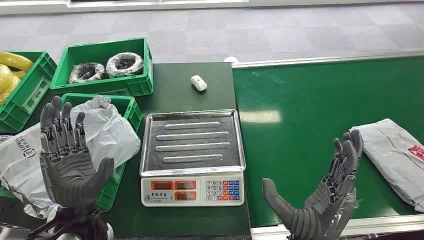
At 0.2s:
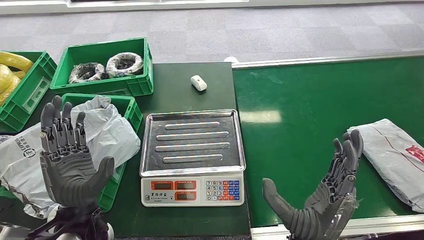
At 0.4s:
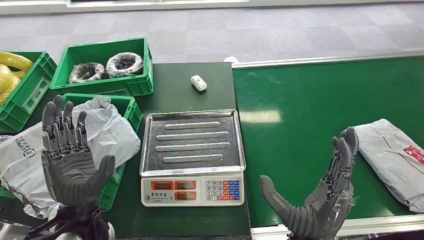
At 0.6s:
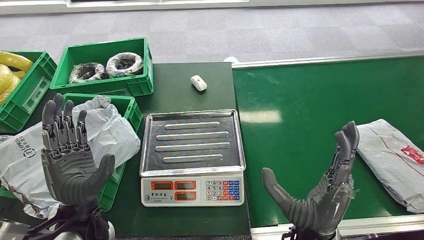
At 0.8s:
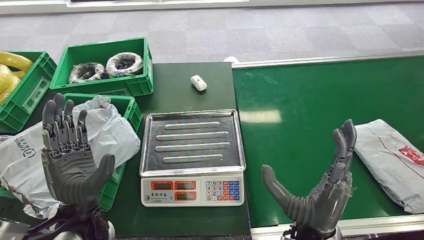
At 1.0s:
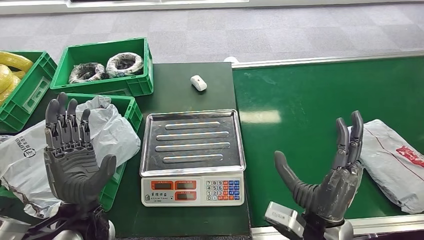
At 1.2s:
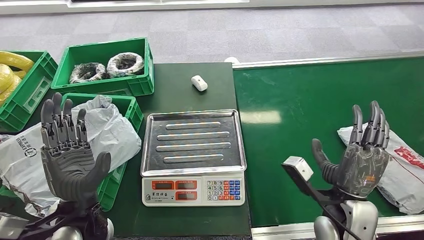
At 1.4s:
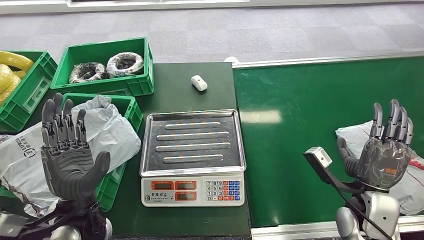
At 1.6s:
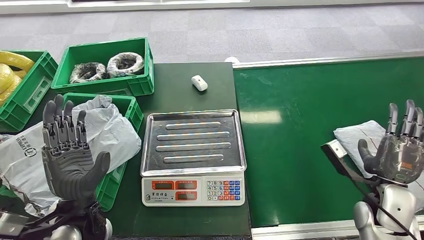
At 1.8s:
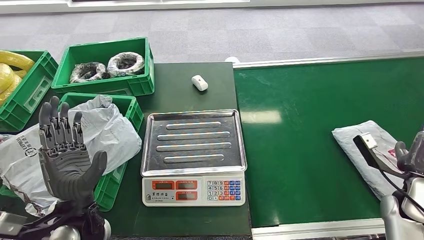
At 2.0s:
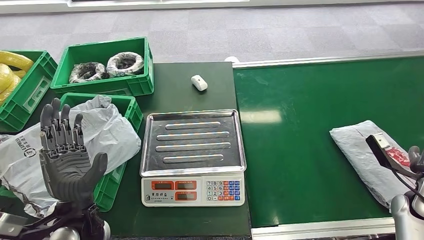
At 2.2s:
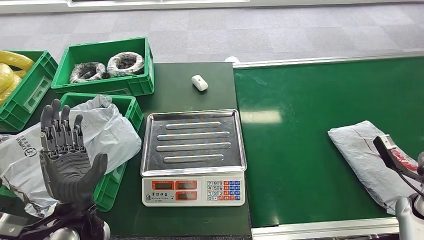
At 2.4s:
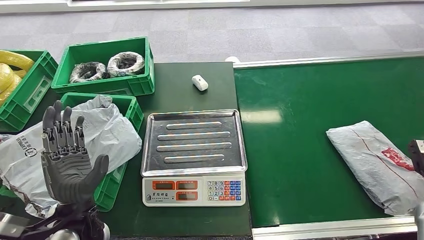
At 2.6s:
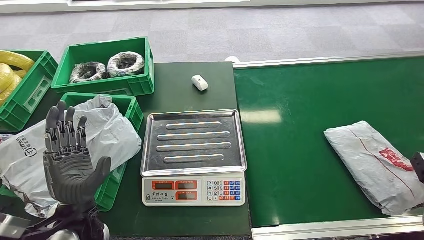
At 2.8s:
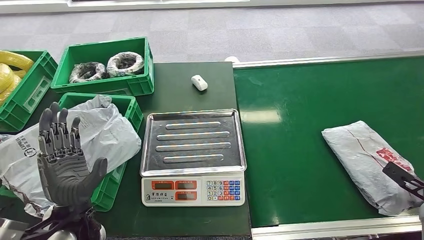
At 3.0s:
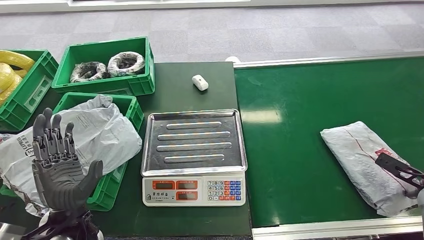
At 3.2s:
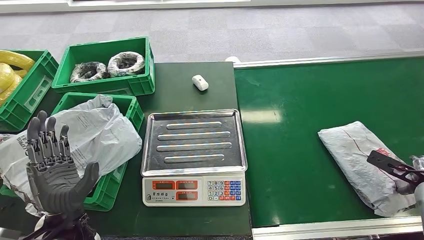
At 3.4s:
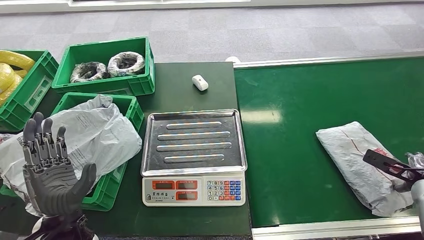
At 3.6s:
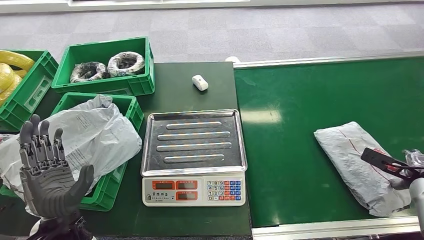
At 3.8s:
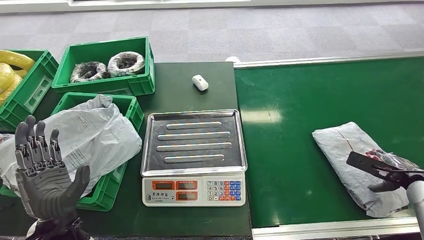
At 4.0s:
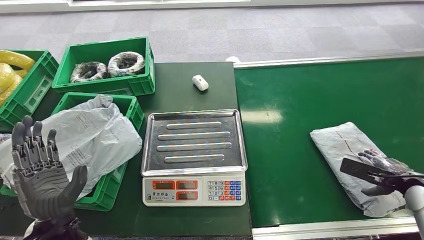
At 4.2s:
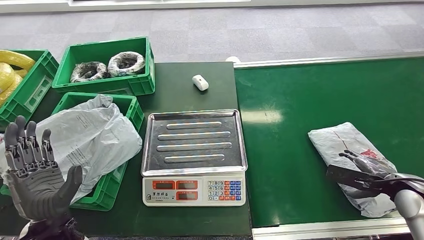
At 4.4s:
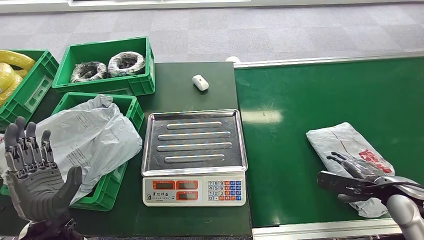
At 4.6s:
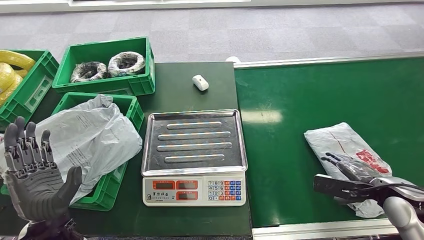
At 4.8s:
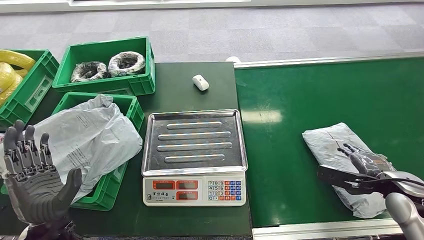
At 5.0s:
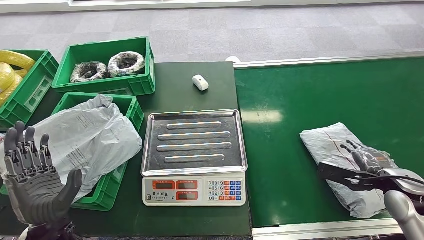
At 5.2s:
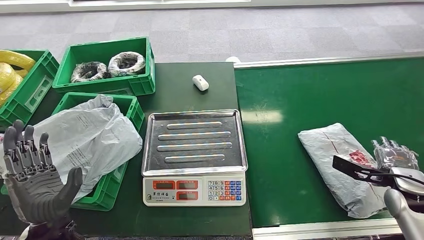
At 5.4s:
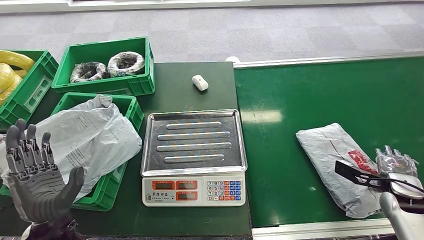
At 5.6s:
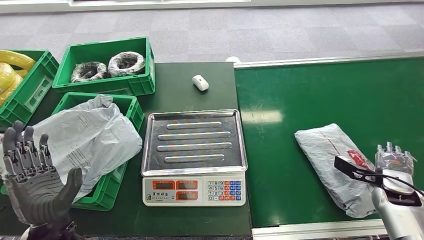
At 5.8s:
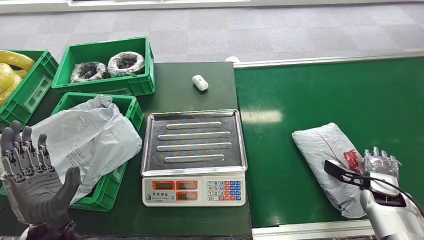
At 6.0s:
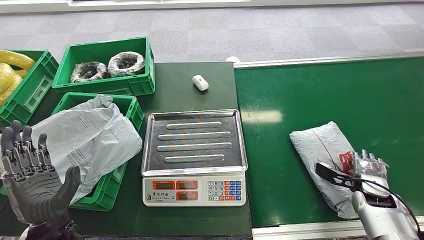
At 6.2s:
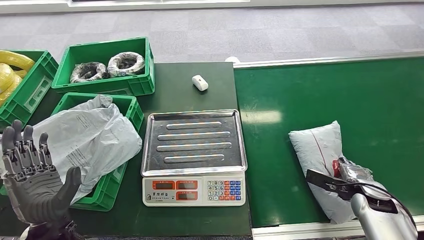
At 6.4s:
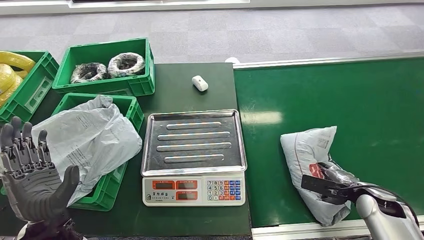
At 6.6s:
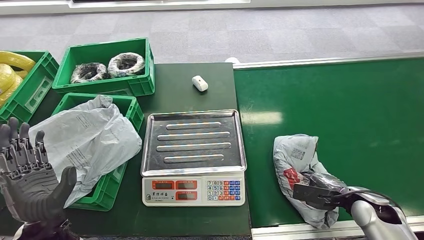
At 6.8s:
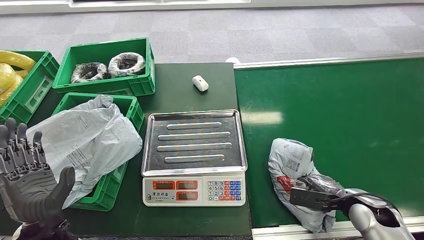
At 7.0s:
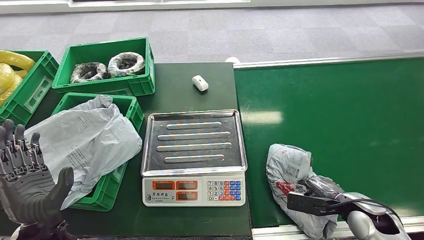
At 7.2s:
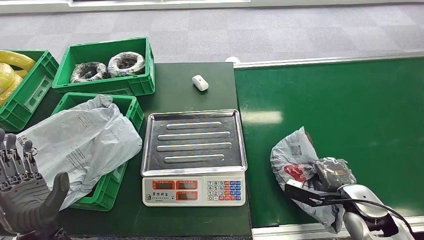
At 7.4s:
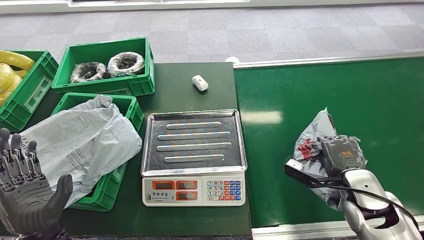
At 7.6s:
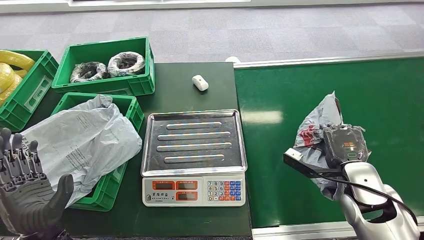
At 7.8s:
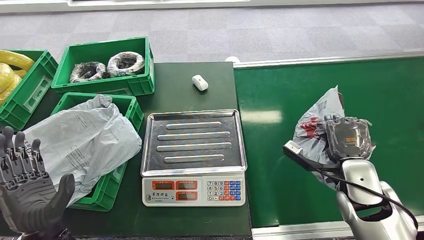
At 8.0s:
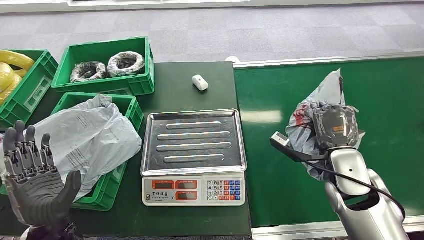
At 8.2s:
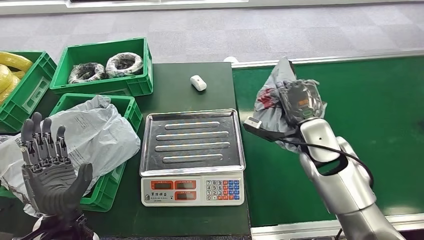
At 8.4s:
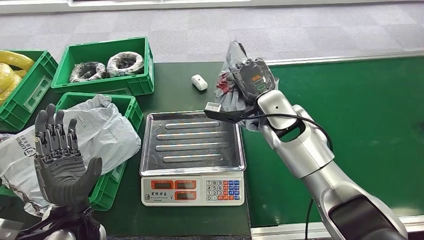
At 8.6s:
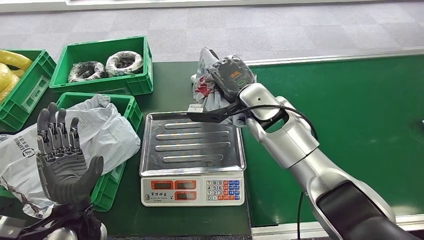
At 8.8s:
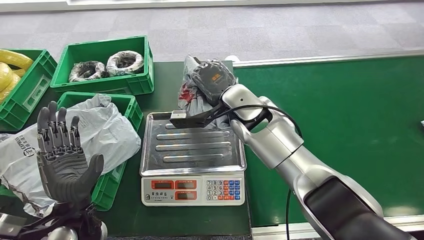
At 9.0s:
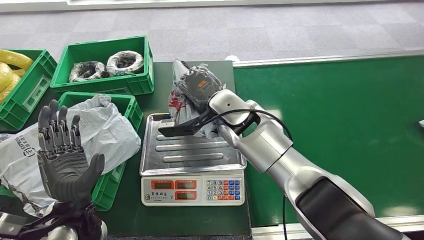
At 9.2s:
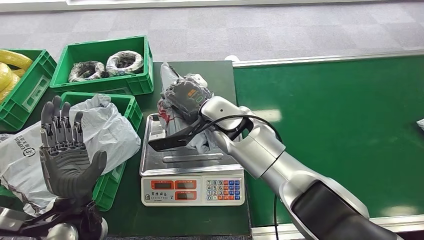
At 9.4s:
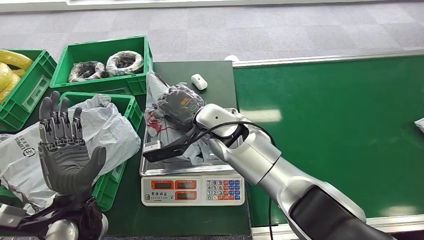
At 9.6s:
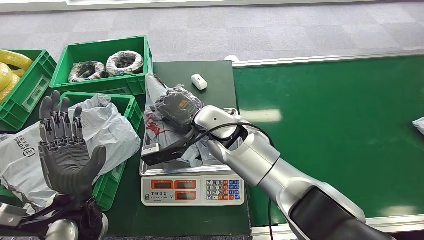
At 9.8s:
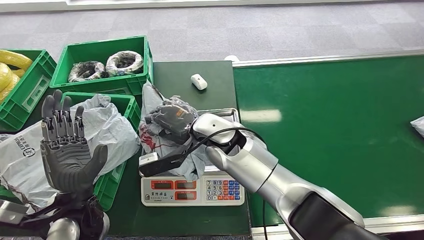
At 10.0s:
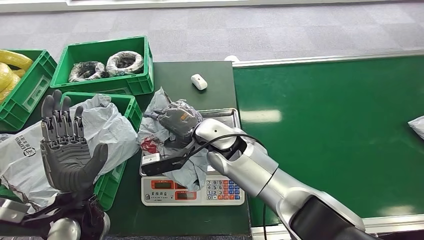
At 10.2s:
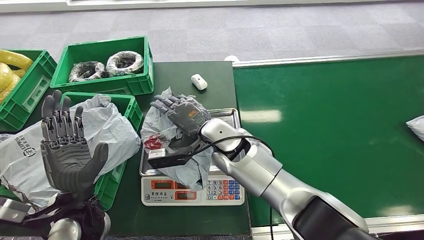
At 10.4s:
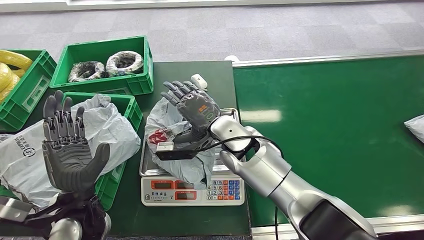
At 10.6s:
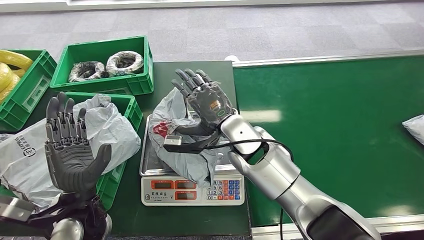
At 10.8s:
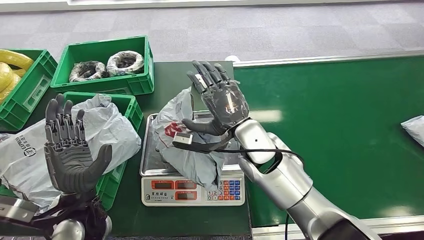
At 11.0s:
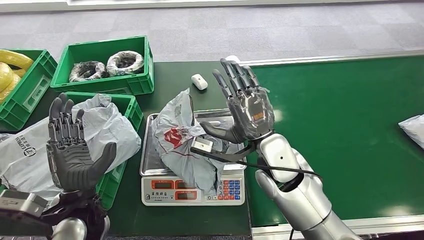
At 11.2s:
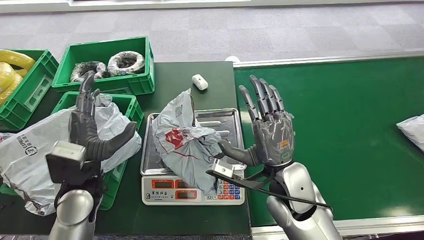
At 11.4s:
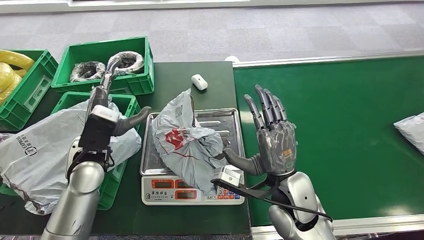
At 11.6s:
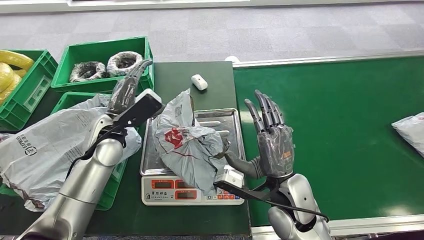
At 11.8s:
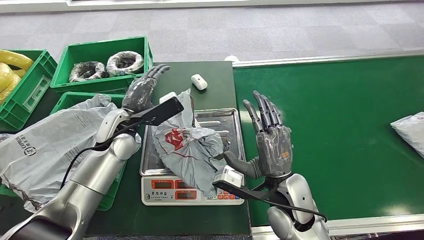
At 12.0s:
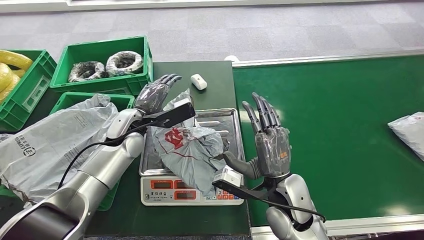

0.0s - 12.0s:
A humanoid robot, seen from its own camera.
Step, 0.0s - 7.8s: Pick up the package from the conveyor belt.
Step, 8.0s - 10.8s: Place the package onto the inbound machine.
1.6s - 3.0s: The right hand is displaced to the right by some 20 cm.
3.0s - 4.4s: The right hand shifts roughly 10 cm to the left.
4.4s - 6.0s: The right hand moves downward, some 10 cm.
6.0s - 7.6s: The right hand heads upward and to the left, covering about 15 cm.

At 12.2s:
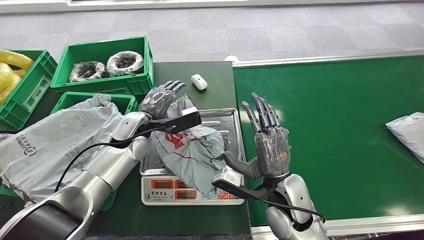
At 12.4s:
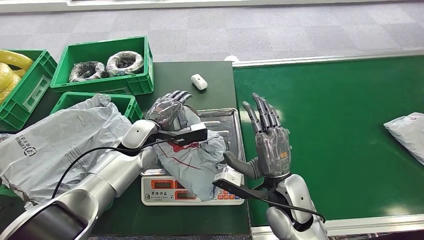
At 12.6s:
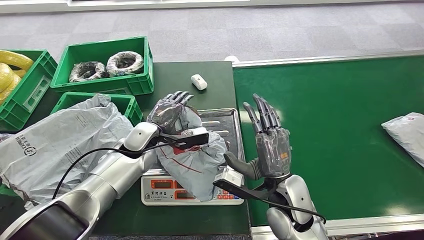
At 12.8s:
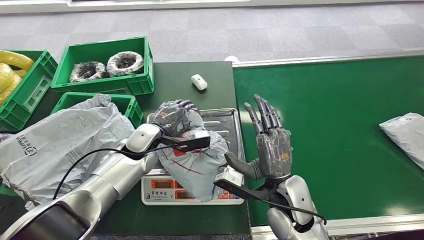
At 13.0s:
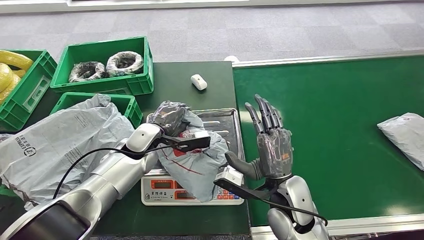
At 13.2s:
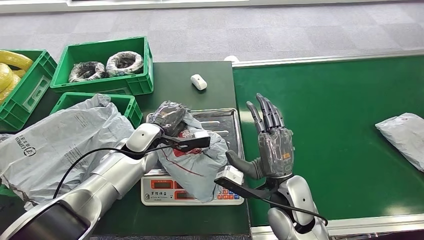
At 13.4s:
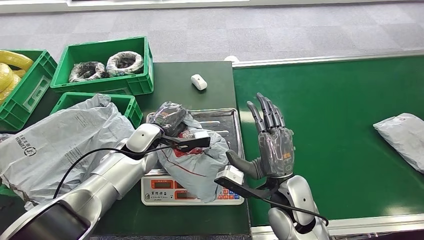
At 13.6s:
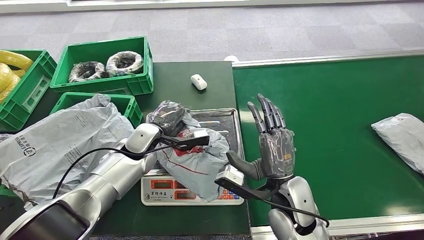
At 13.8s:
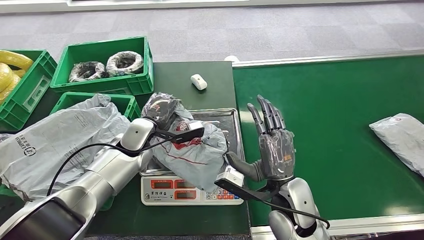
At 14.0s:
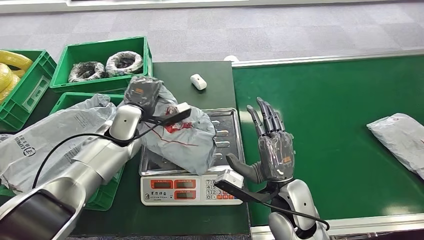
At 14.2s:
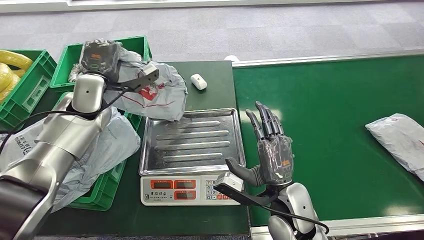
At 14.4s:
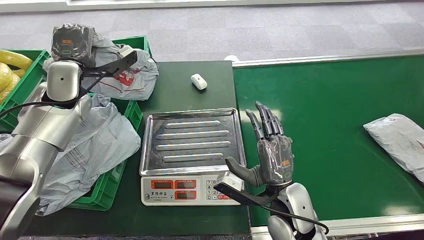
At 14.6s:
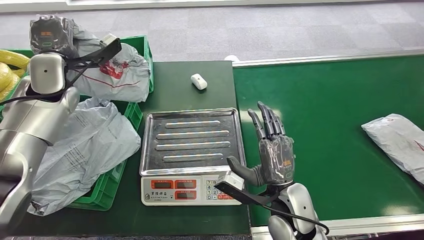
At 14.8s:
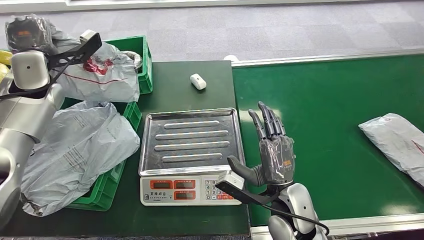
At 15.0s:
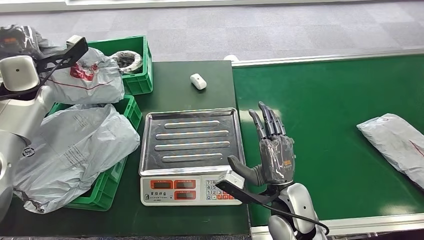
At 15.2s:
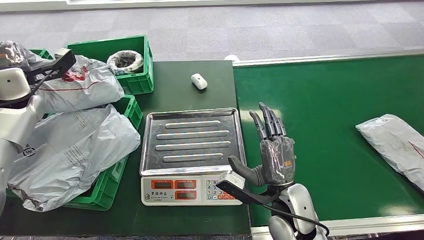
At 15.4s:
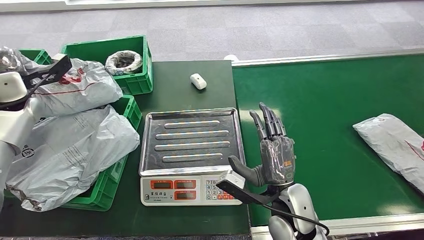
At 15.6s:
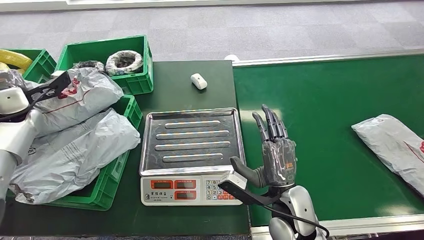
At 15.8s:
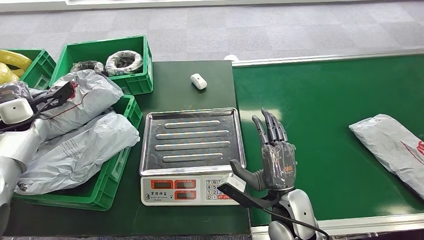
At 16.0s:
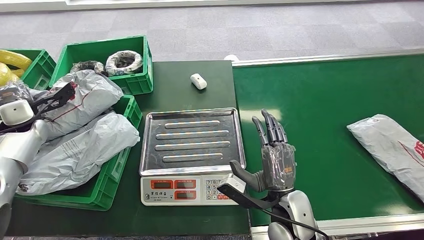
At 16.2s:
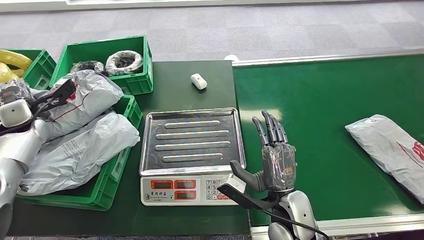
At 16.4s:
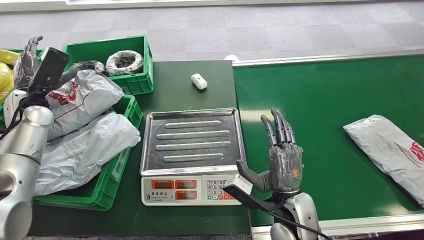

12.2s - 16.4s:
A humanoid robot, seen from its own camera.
Step, 12.2s - 14.4s: Pick up the package from the inbound machine.
Step, 14.8s - 16.4s: Place the package into the parcel locker.
12.2s - 13.6s: The hands move only a little.
